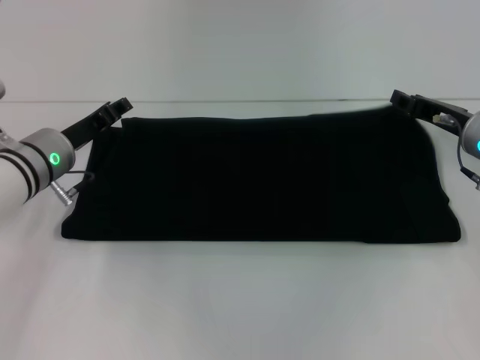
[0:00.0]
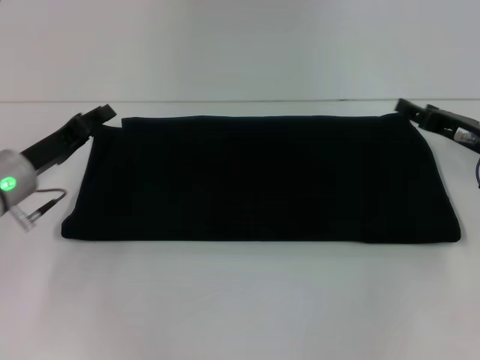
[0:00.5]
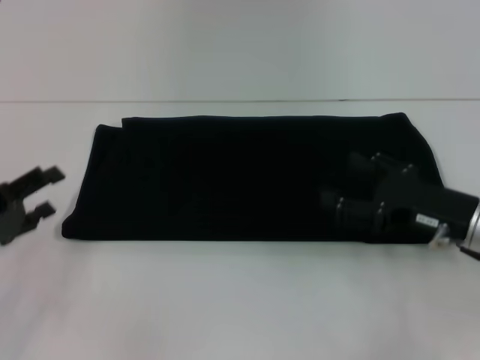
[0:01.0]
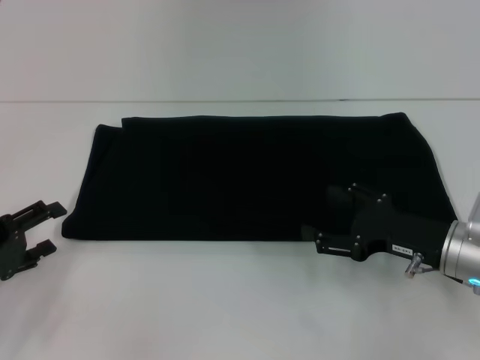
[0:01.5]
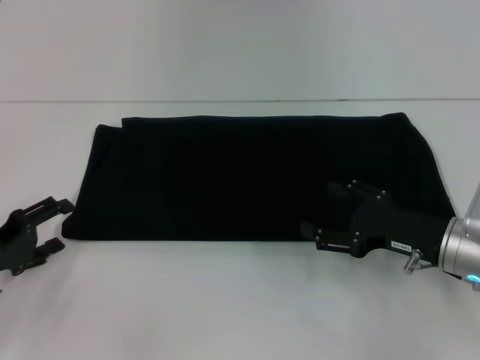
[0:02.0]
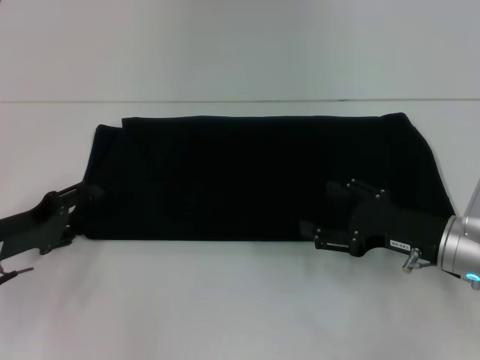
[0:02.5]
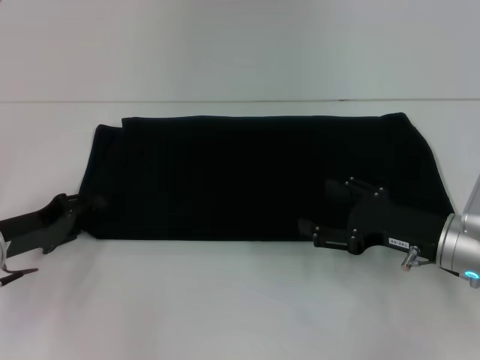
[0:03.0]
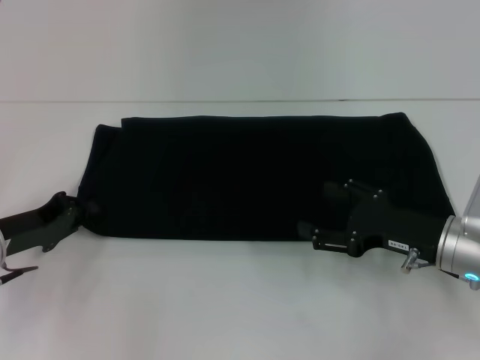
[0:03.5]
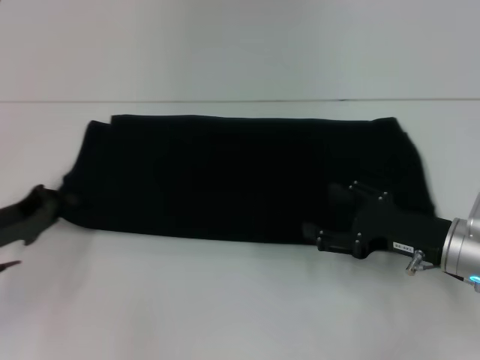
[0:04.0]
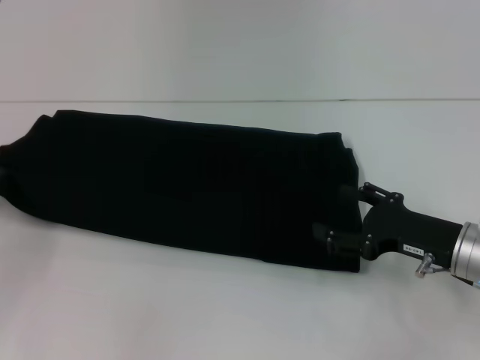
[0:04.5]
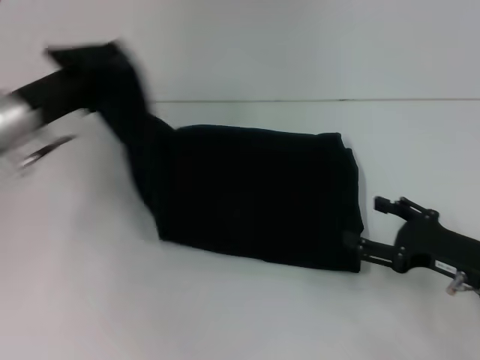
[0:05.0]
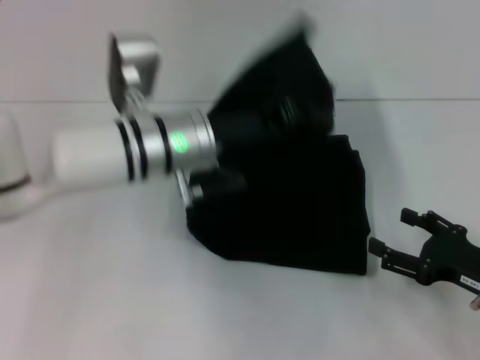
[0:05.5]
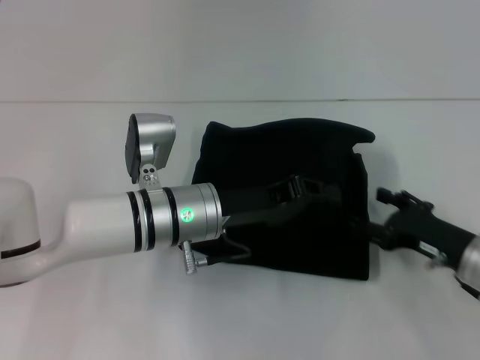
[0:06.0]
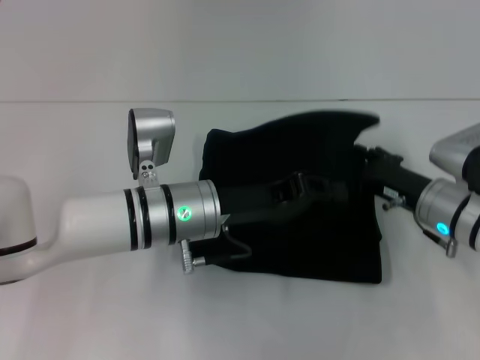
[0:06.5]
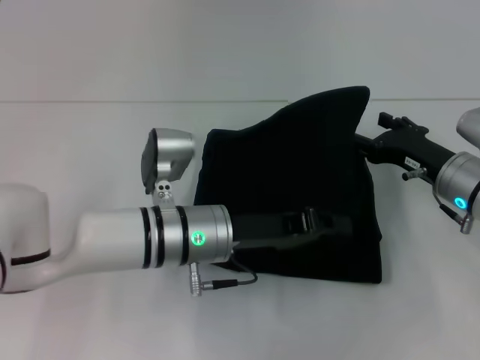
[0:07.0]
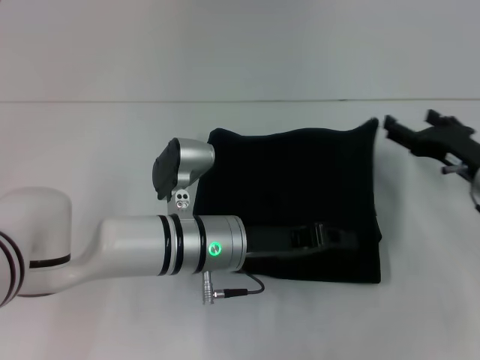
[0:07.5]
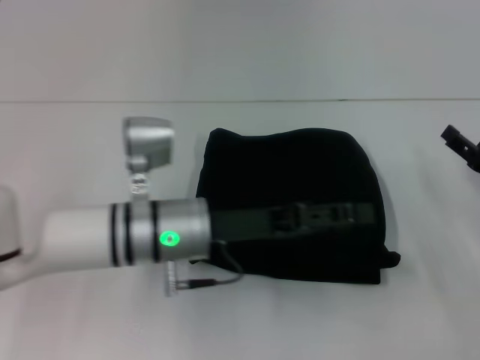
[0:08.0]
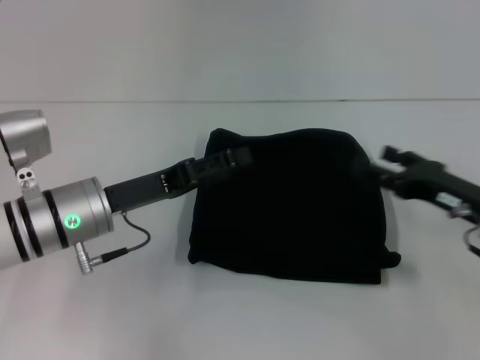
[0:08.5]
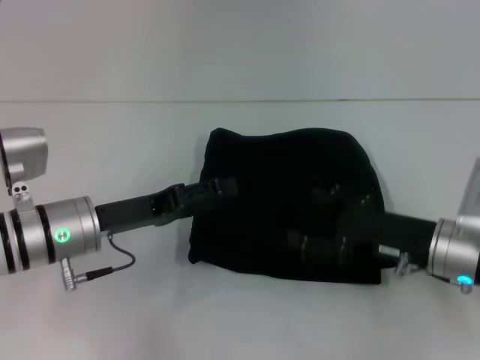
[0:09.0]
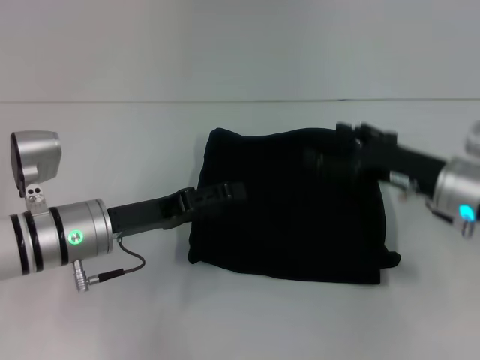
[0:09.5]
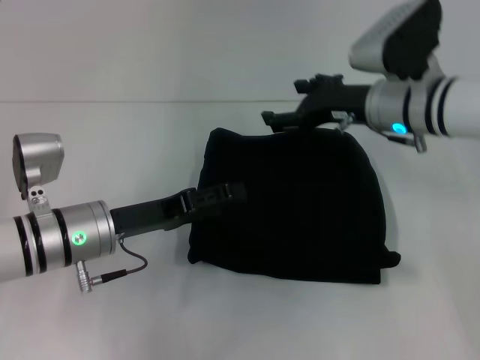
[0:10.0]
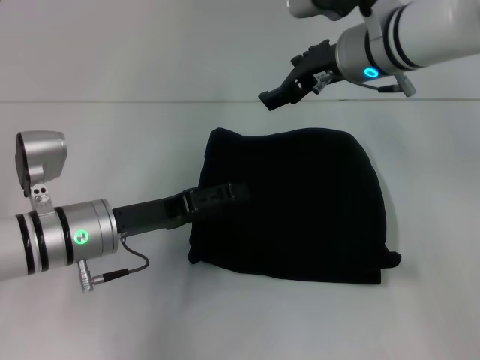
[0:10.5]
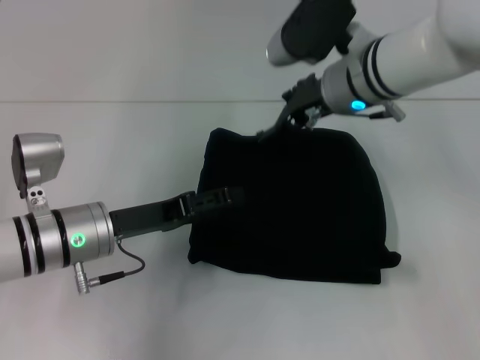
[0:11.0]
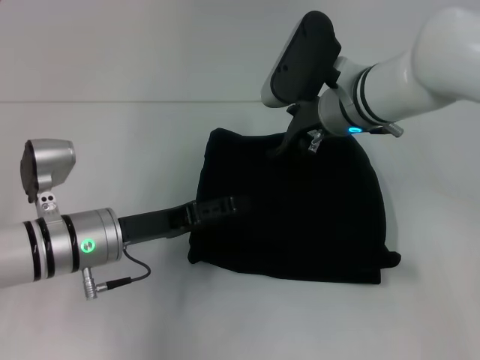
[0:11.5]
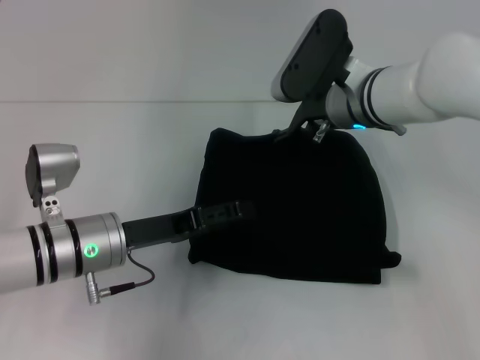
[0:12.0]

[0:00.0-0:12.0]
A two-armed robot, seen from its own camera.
Step, 0:00.0 to 0:07.5: Fold the clothes with your left hand.
0:00.0 to 0:02.0: The right gripper travels backward by approximately 10 cm, and opens up, while the left gripper shifts some 15 cm backward and to the left, and opens its fingers.
0:02.0 to 0:04.0: The left gripper closes up.
0:04.0 to 0:06.0: The left gripper travels to the right by roughly 25 cm.
0:06.0 to 0:08.0: The left gripper opens. The right gripper travels to the right by about 5 cm.
0:08.0 to 0:10.0: The left gripper shifts some 10 cm to the left, and opens, while the right gripper shifts some 20 cm to the left, forward and upward.
0:10.0 to 0:12.0: The right gripper goes about 5 cm to the left.

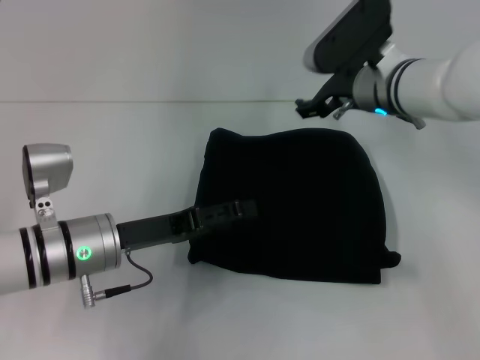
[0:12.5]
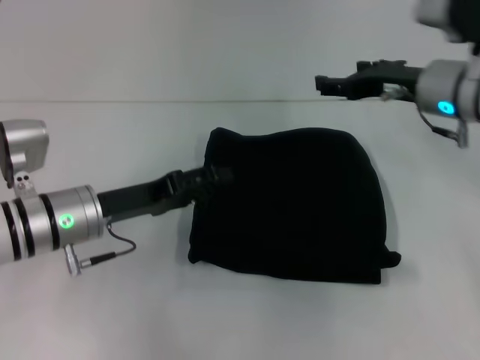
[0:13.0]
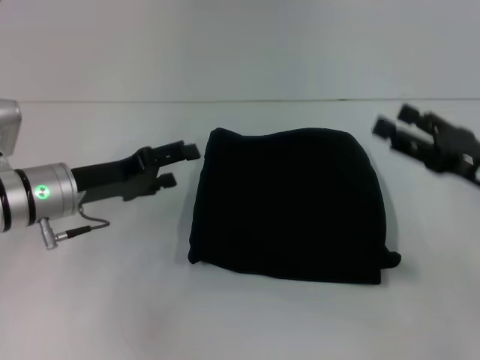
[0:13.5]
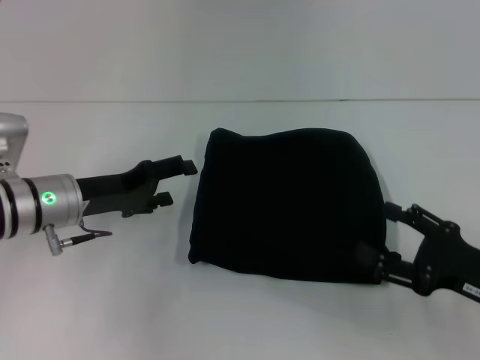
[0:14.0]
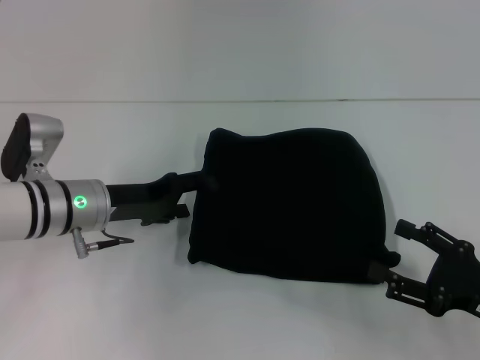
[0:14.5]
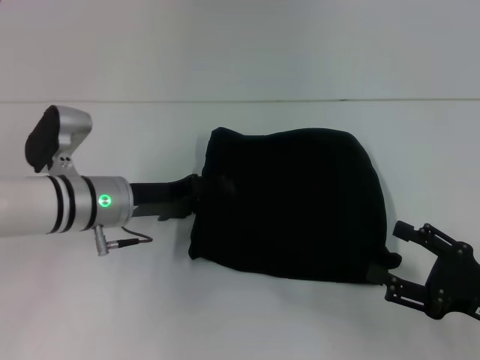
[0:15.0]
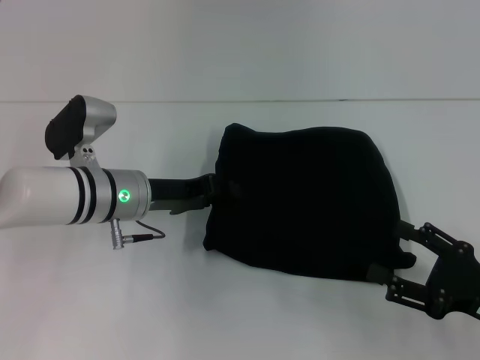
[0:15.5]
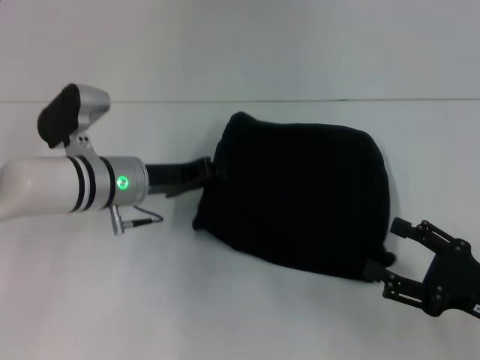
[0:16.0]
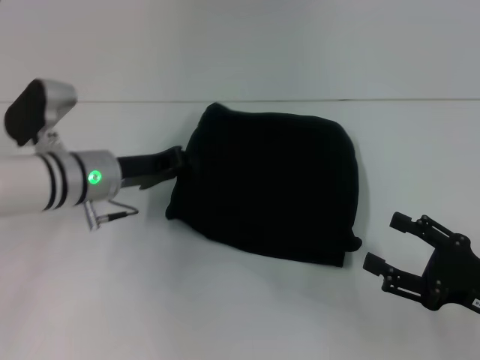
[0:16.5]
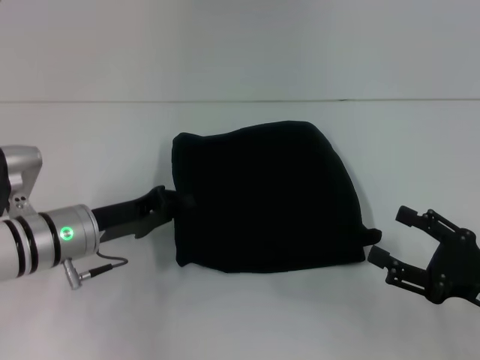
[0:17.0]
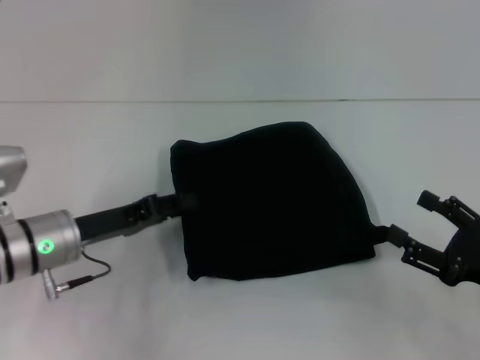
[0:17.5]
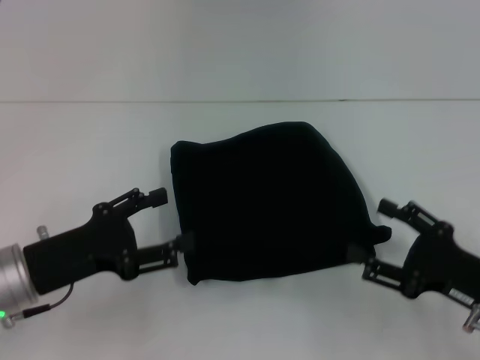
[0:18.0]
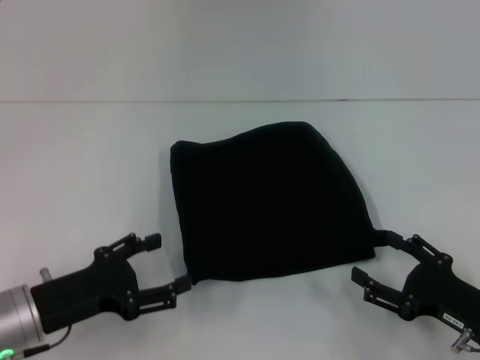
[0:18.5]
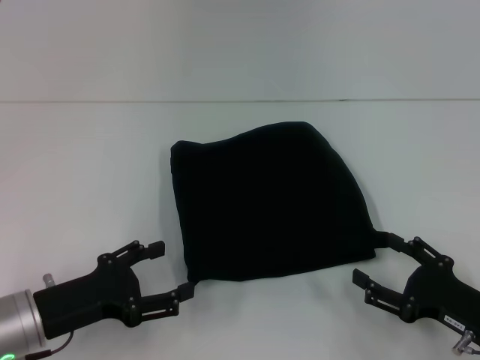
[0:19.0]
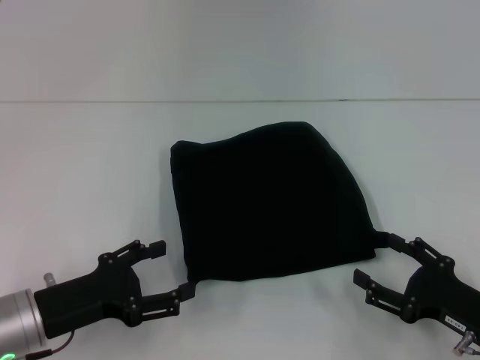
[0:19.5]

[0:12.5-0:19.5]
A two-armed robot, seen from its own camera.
0:12.5 to 0:14.5: The left gripper is displaced forward by roughly 5 cm. Meanwhile the right gripper shifts roughly 30 cm backward, to the right and downward.
0:14.5 to 0:16.0: The left gripper closes its fingers.
0:16.0 to 0:17.5: The left gripper goes roughly 10 cm backward and to the left.
0:17.5 to 0:19.5: The right gripper shifts by roughly 5 cm; the left gripper heads backward, covering some 10 cm, and opens its fingers.

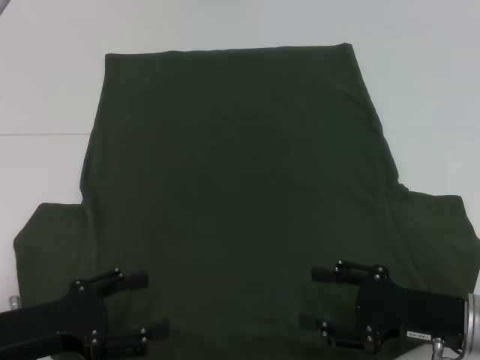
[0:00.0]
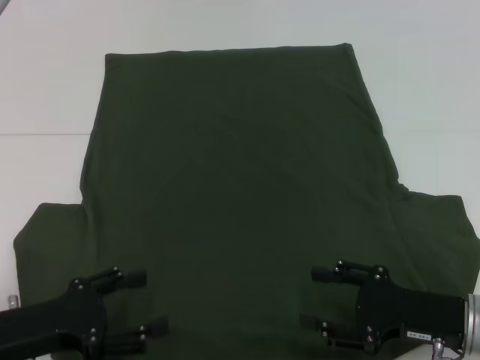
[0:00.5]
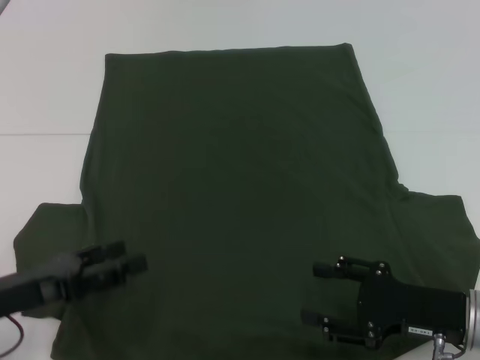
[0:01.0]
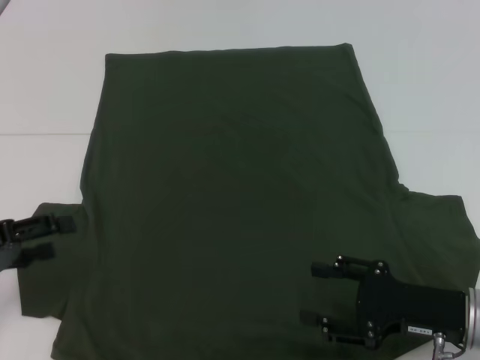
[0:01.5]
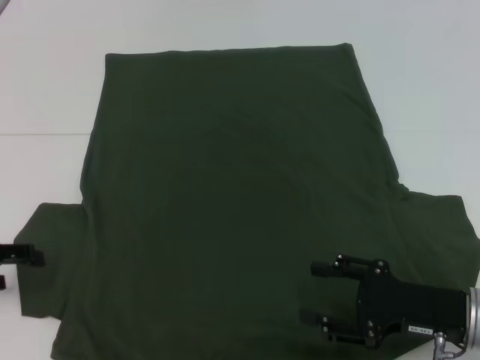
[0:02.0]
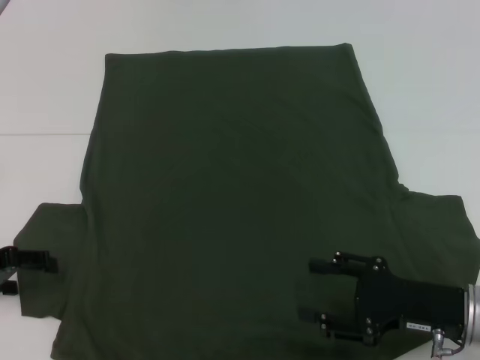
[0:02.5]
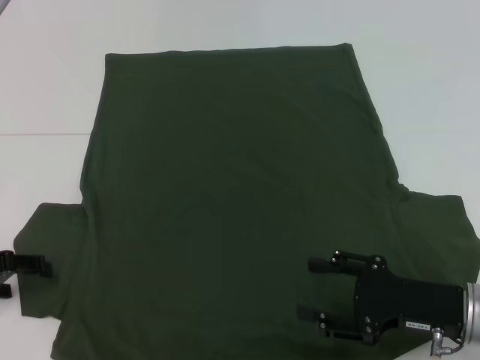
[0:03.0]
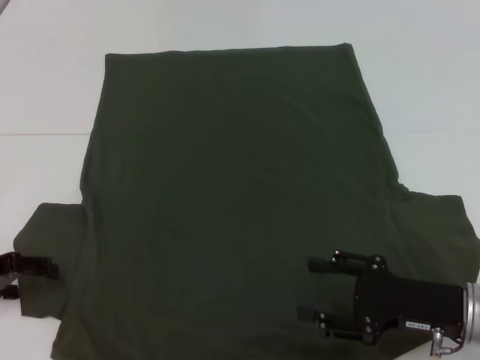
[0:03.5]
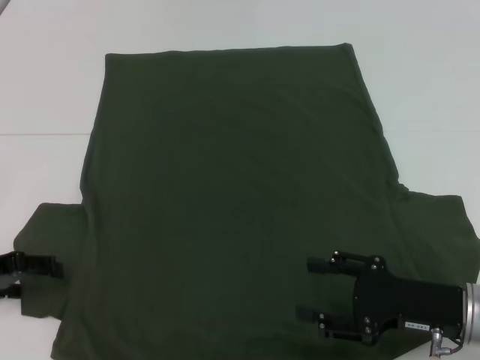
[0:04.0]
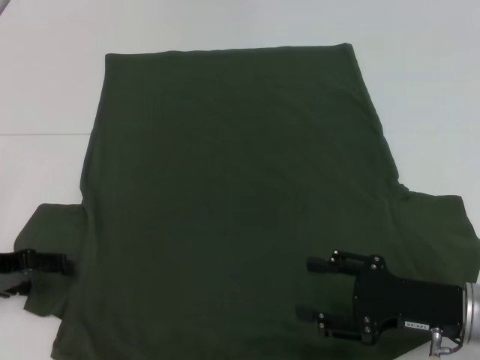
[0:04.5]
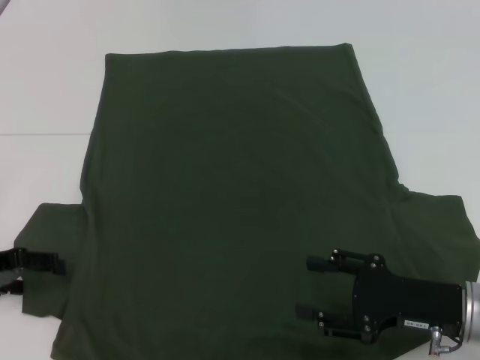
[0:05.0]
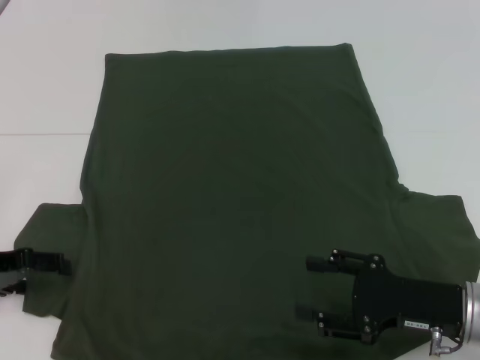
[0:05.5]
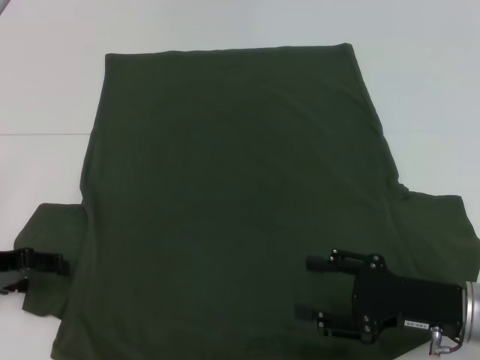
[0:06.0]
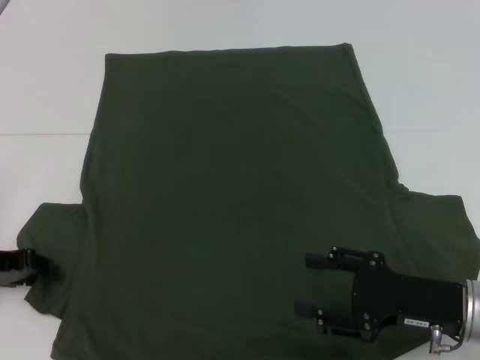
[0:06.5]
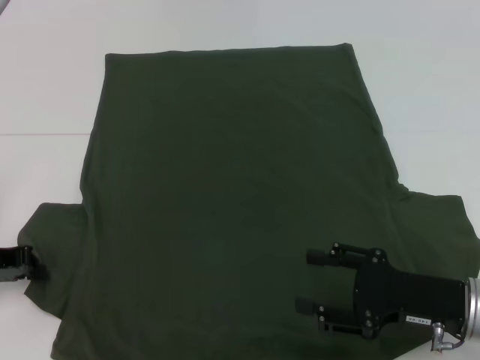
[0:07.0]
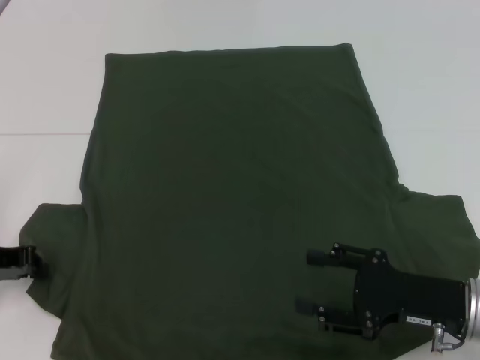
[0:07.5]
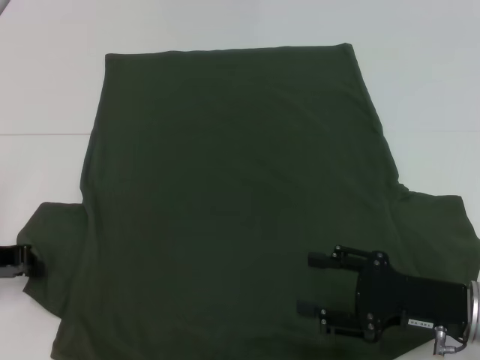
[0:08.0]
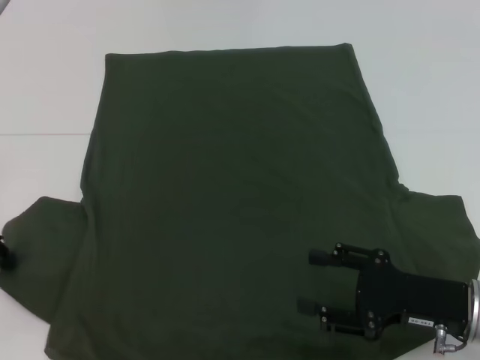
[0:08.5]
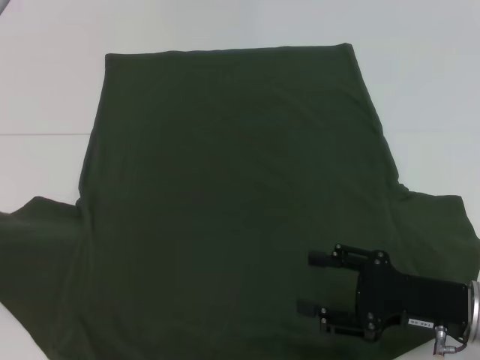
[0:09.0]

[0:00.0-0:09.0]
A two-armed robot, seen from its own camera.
0:00.0 to 0:02.0: The left gripper heads to the left, forward and upward, covering roughly 10 cm.
0:02.0 to 0:04.5: The grippers make only small movements.
0:04.5 to 0:07.0: The left gripper closes.
0:07.0 to 0:09.0: The left gripper ends up roughly 5 cm from where it was.
